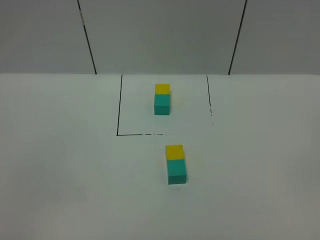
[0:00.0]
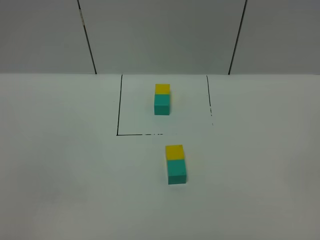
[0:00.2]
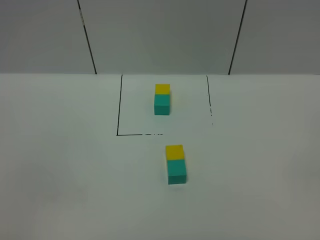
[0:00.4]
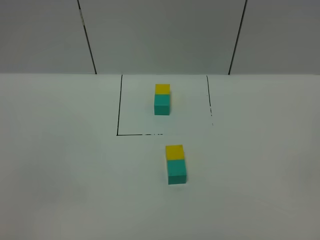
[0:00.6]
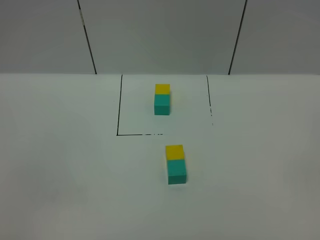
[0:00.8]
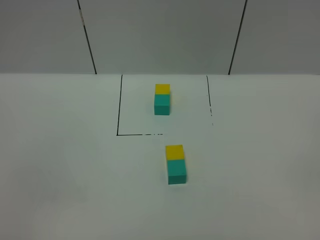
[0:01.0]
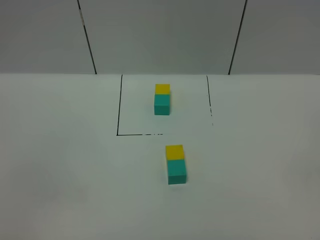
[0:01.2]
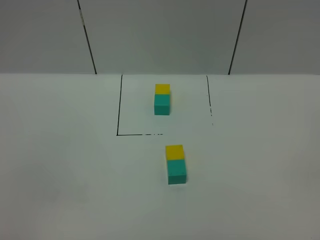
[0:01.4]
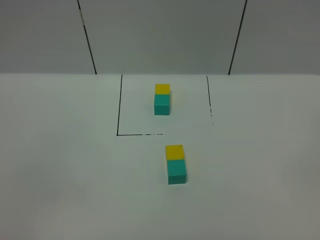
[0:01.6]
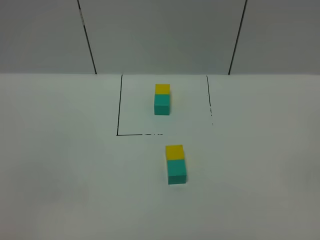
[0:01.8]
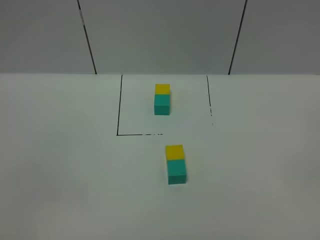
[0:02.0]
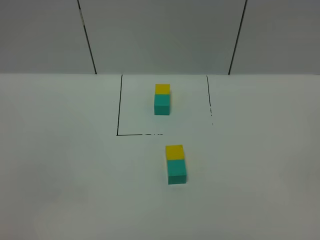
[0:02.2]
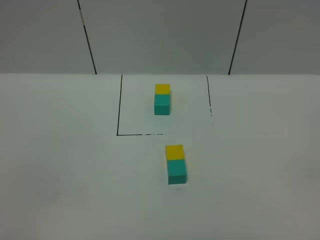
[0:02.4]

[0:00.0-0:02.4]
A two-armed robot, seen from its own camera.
Task of the whole recording: According to the building block template in front, assemble the scattered blocks together.
0:00.0 to 0:02.4: Neither gripper changes place.
